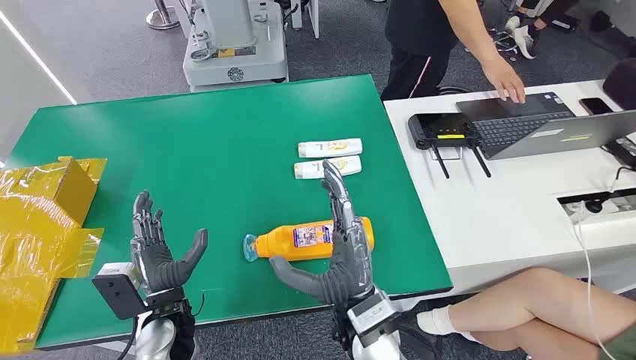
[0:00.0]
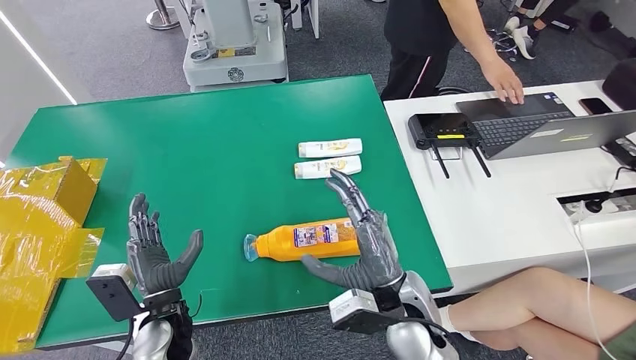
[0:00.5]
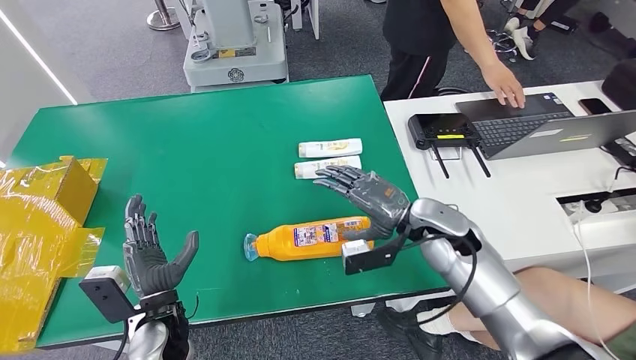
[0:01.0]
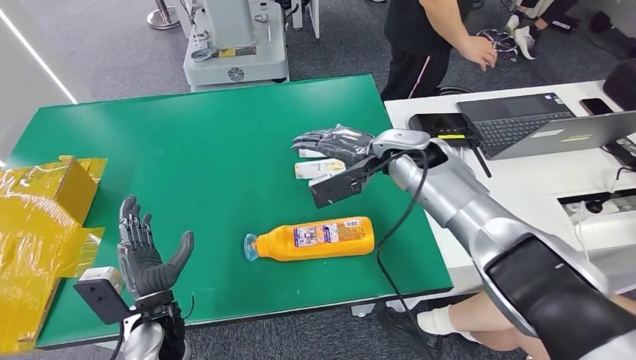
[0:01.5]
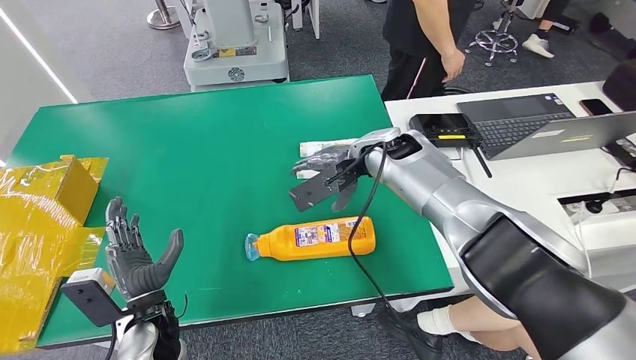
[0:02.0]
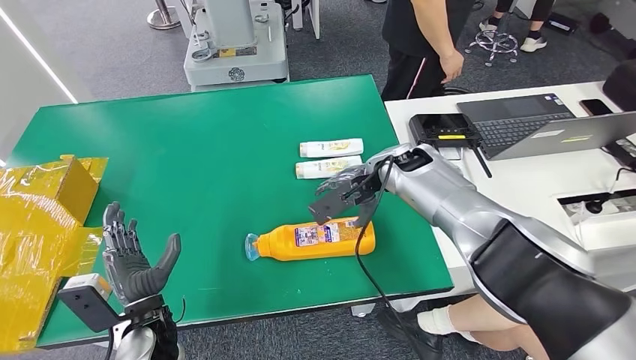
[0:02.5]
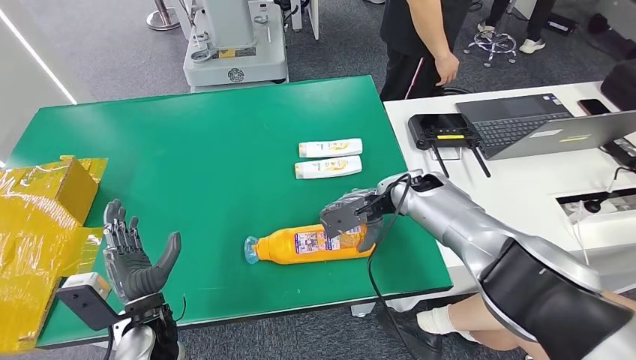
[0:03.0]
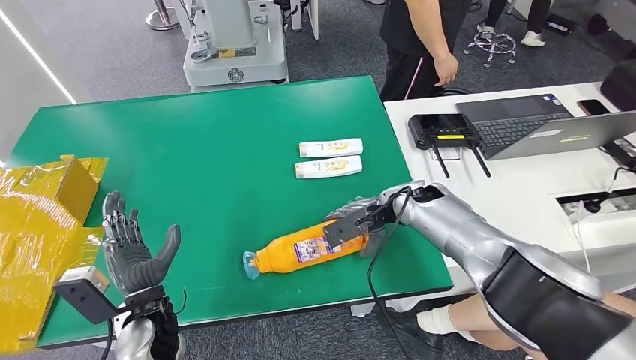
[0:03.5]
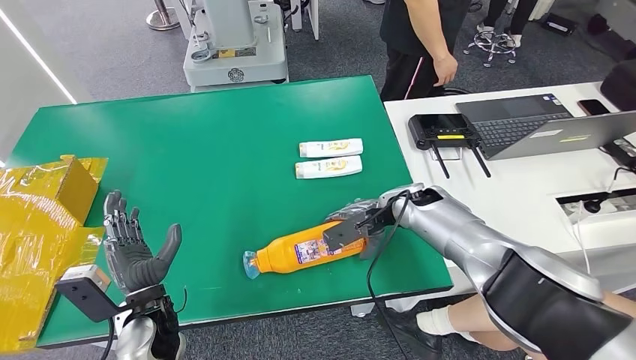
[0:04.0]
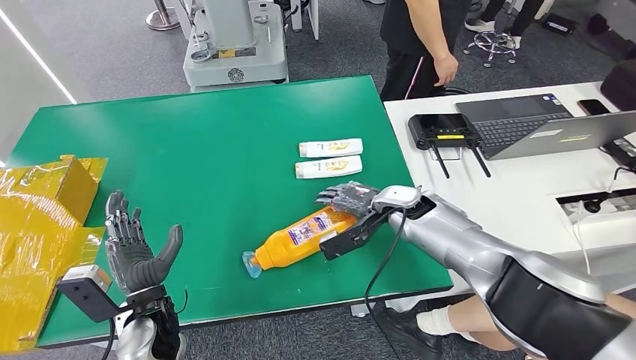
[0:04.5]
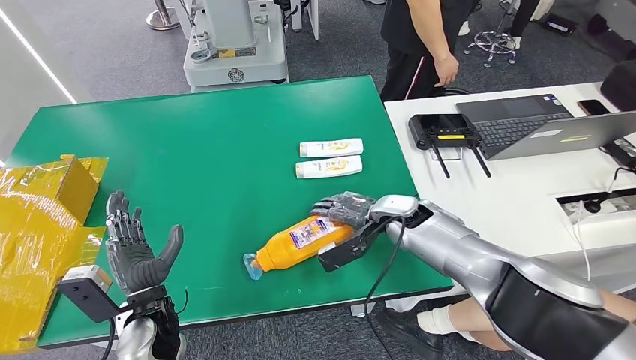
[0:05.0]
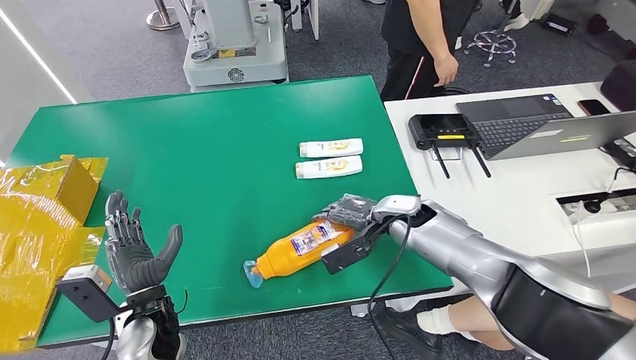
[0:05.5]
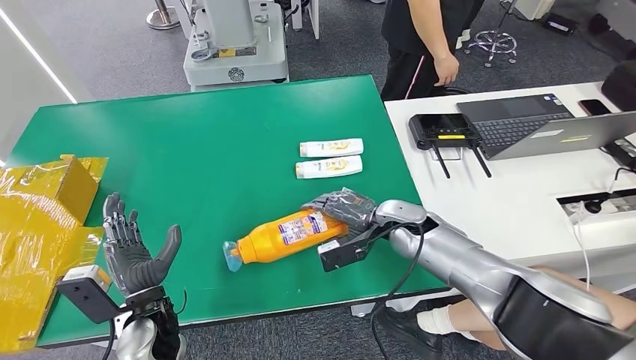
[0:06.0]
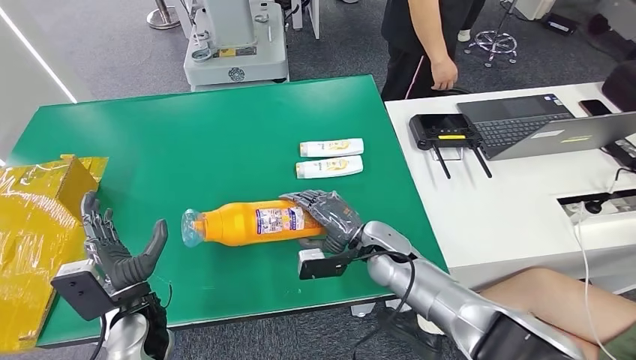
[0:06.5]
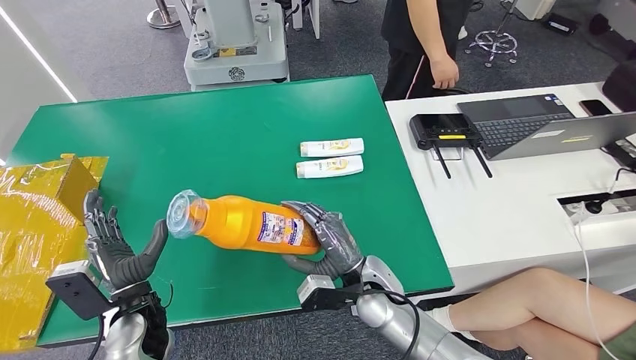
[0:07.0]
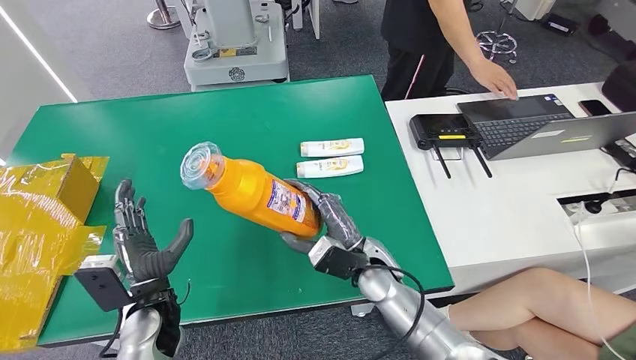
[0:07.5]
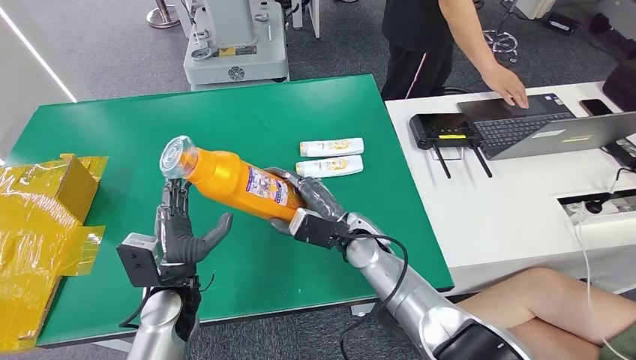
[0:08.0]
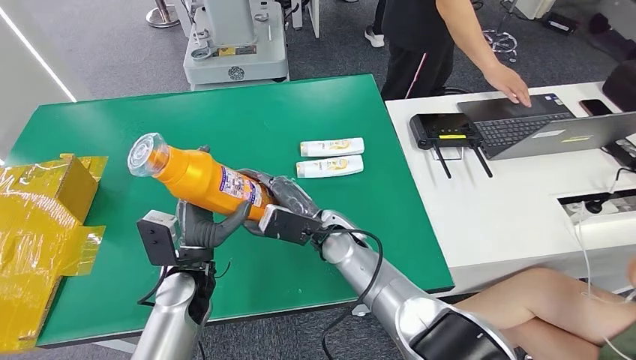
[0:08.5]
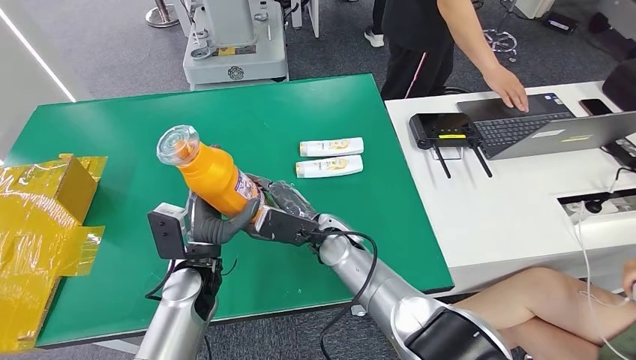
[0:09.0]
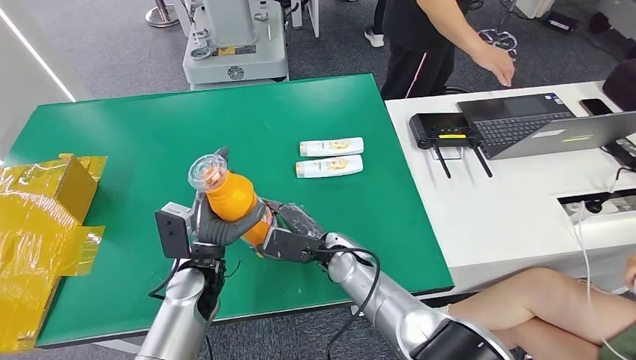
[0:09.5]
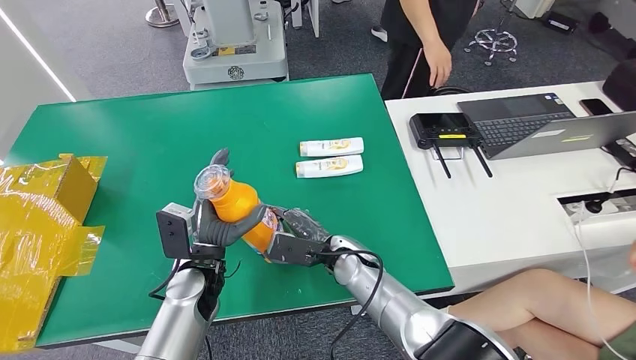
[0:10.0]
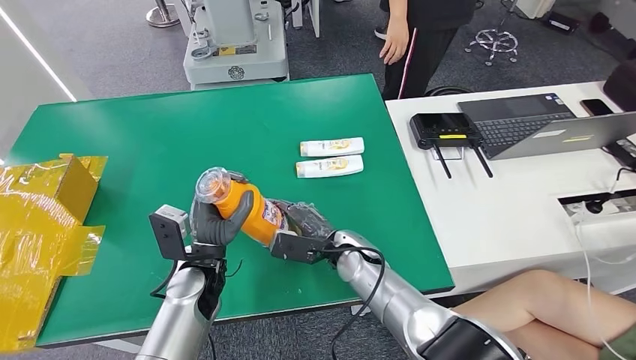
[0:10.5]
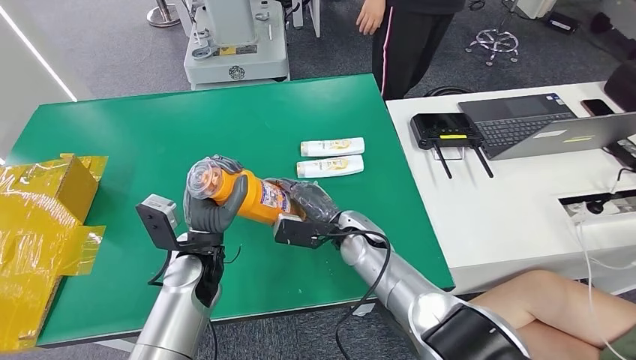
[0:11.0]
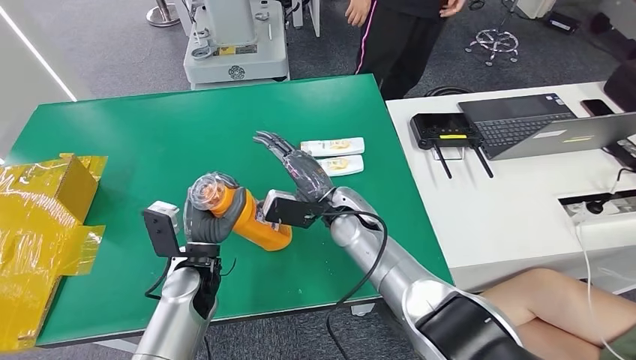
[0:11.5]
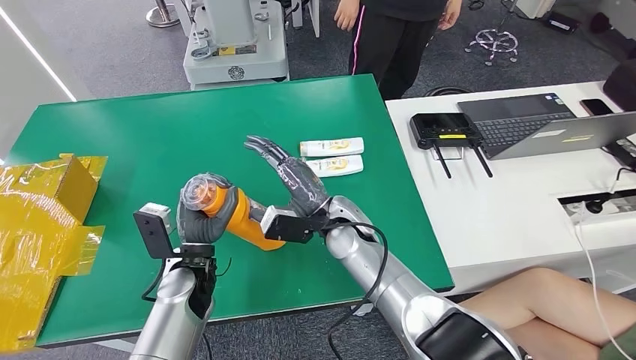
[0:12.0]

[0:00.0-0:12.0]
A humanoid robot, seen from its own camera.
Step, 0:00.0 to 0:07.5: Pick up the bottle from the table.
0:02.0 to 0:04.0: The right hand travels downward and to the right by approximately 10 cm.
0:08.0 to 0:10.0: The right hand moves about 5 cm.
0:10.0 to 0:12.0: The right hand is displaced upward by roughly 10 cm.

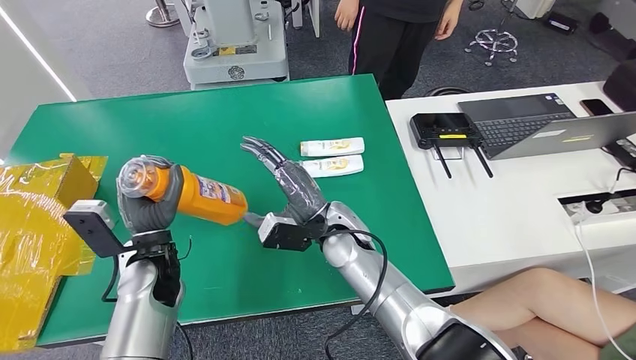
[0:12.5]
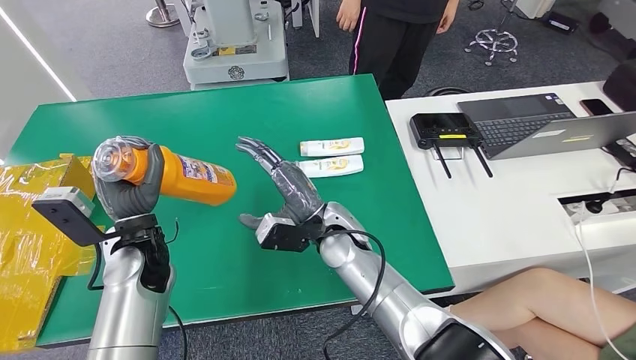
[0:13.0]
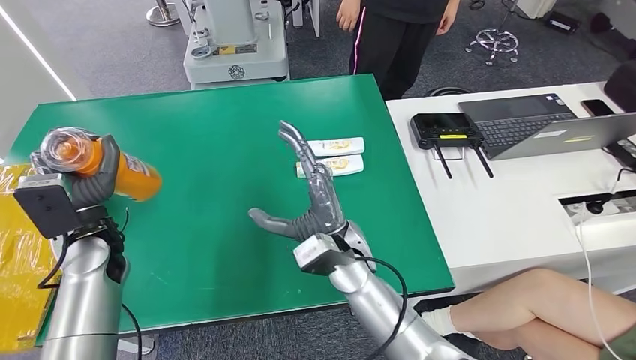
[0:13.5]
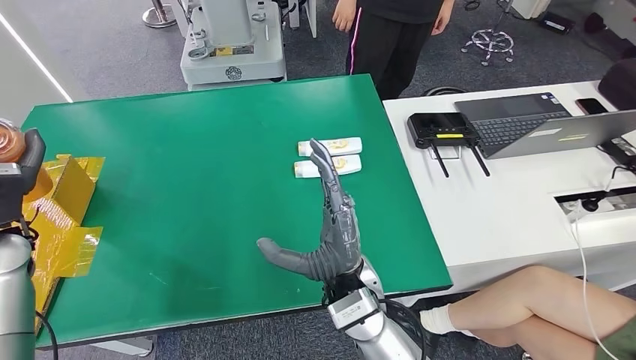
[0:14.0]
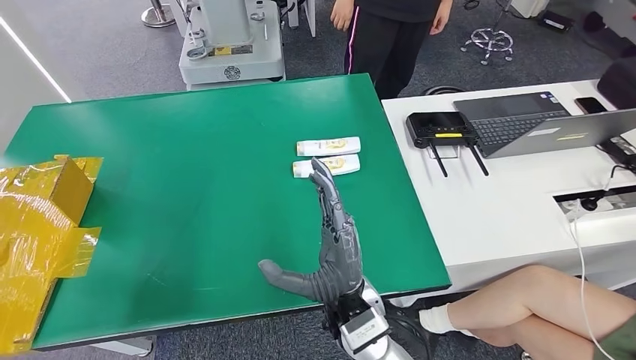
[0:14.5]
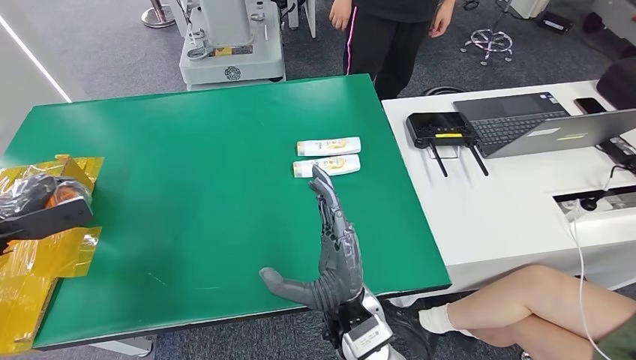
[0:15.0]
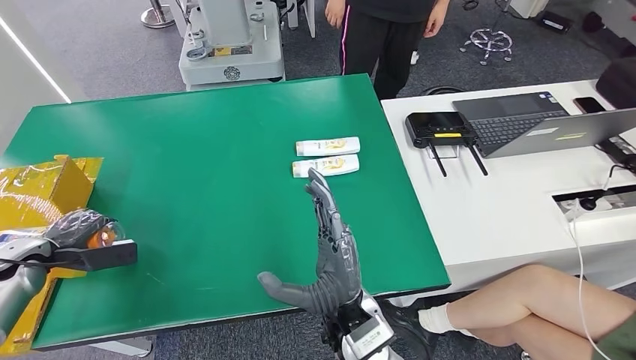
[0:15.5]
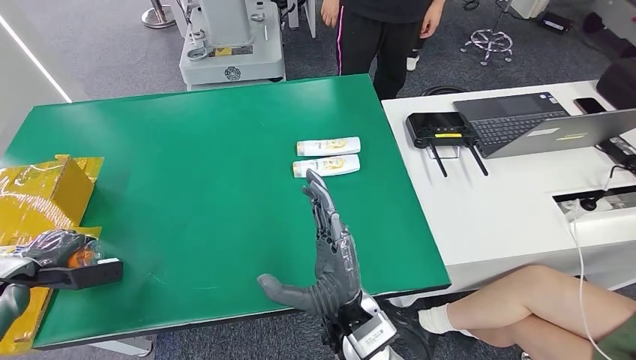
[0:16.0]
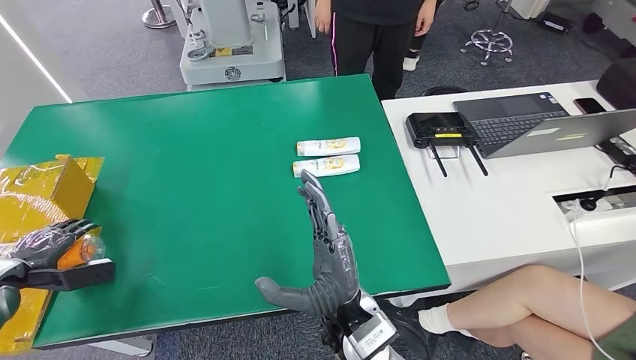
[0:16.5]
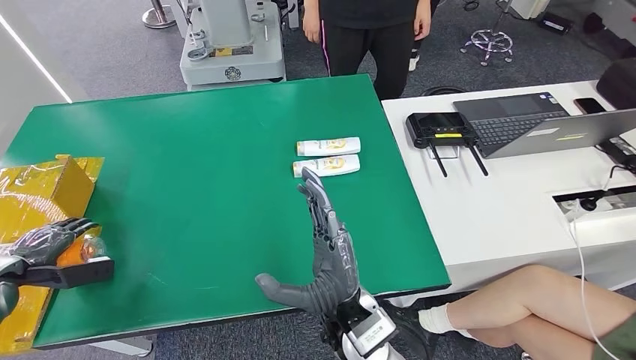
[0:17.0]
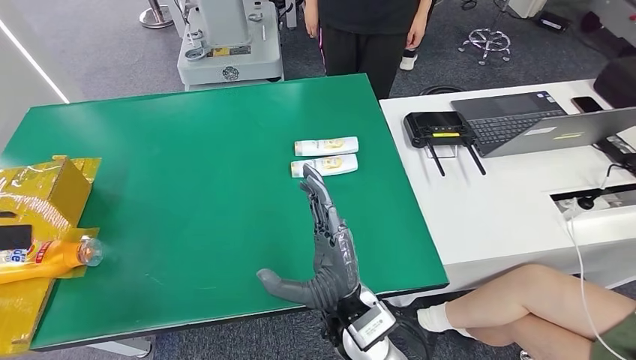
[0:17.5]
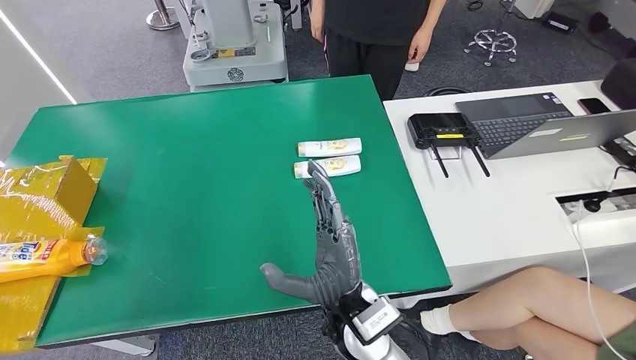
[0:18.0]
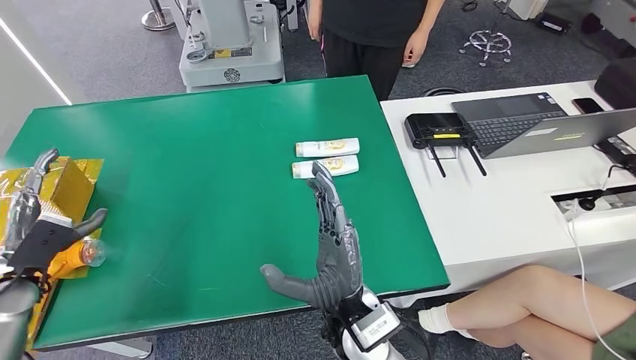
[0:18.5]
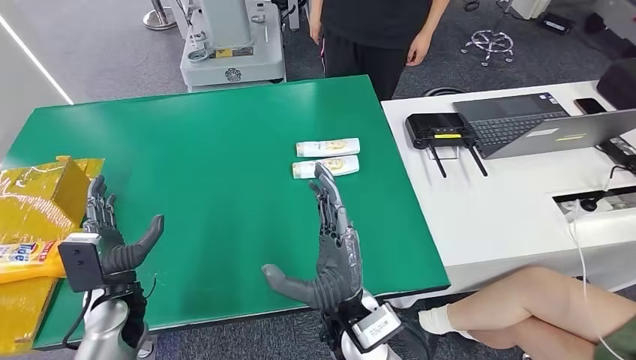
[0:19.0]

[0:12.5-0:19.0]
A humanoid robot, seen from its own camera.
Step, 0:12.5 to 0:18.5: Turn the bottle to the front side.
0:14.5 to 0:17.0: The left hand is displaced downward by approximately 20 cm.
0:17.0 to 0:19.0: The left hand moves to the right, about 25 cm.

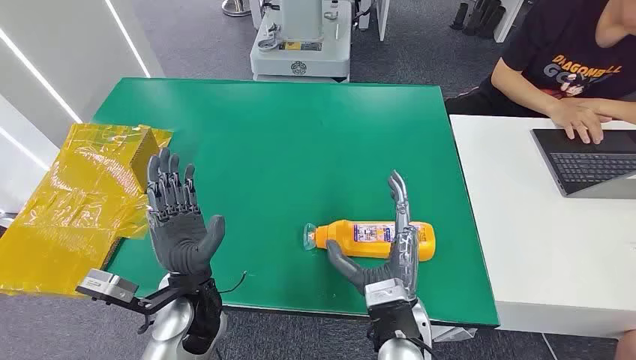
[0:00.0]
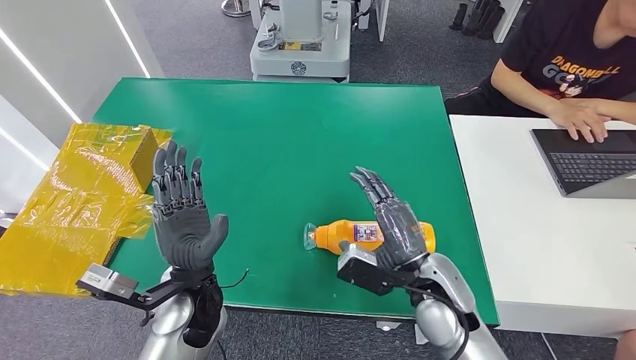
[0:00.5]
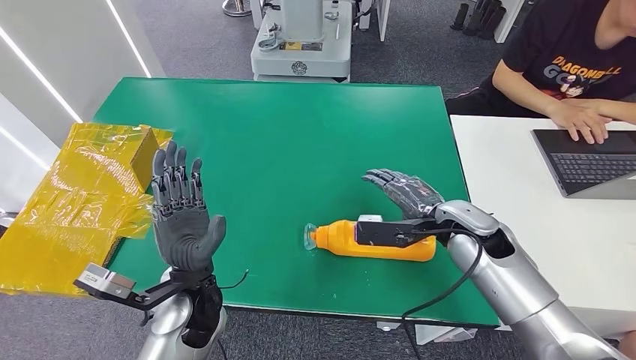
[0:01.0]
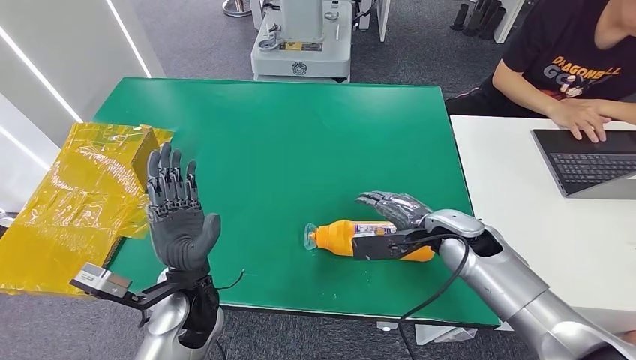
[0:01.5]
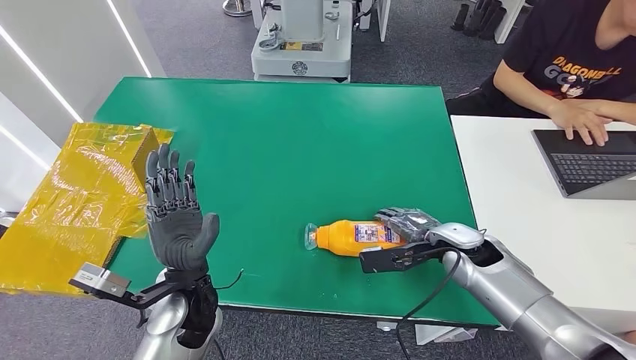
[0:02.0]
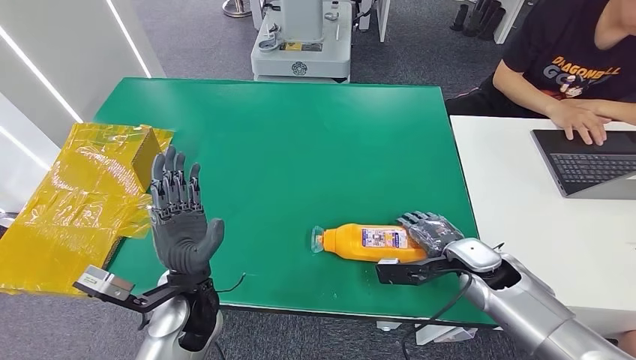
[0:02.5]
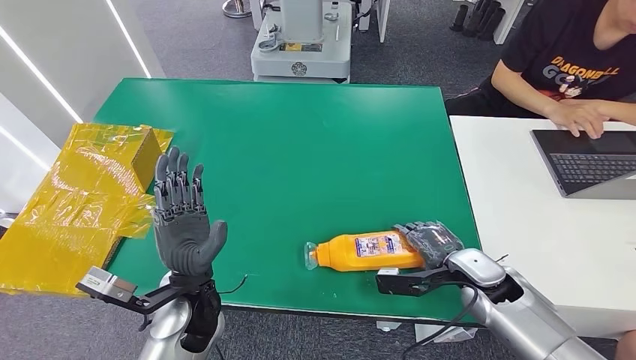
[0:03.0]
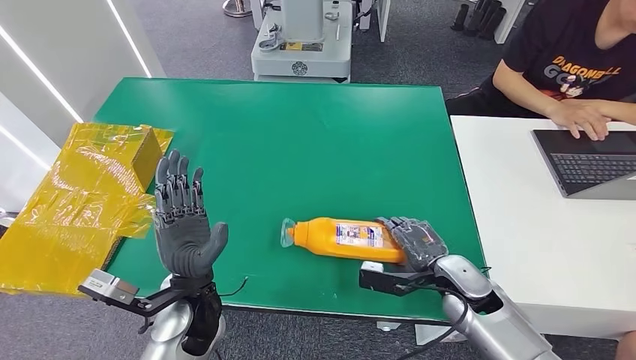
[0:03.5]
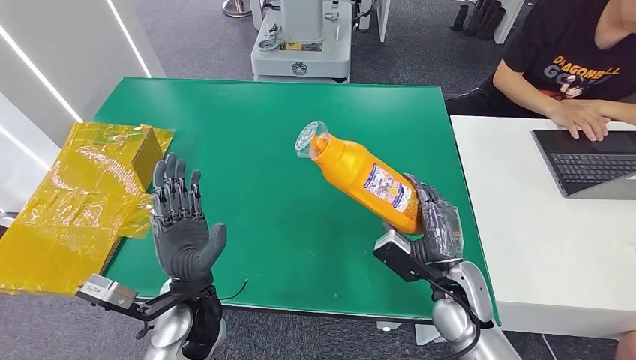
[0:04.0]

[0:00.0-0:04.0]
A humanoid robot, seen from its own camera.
0:02.0 to 0:04.0: The right hand heads backward and to the left, covering approximately 10 cm.
